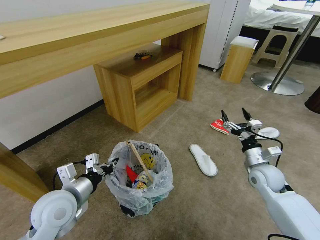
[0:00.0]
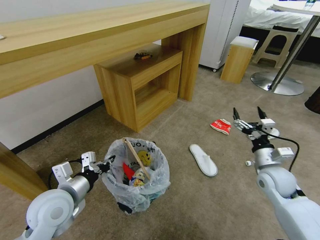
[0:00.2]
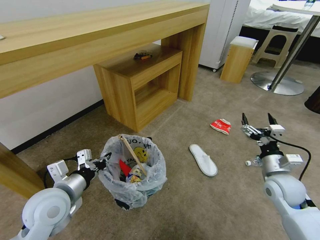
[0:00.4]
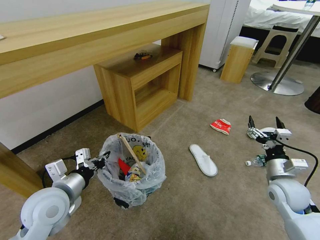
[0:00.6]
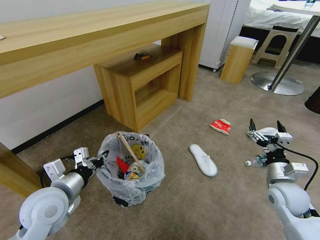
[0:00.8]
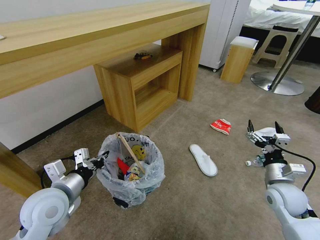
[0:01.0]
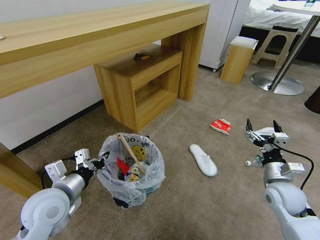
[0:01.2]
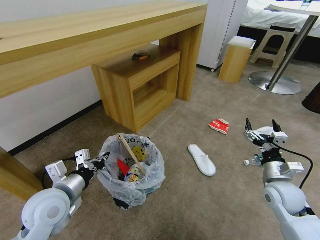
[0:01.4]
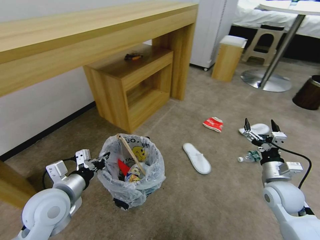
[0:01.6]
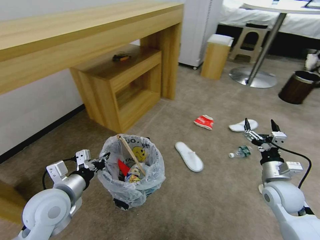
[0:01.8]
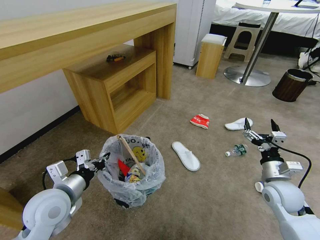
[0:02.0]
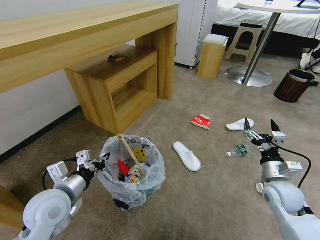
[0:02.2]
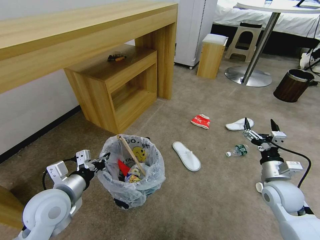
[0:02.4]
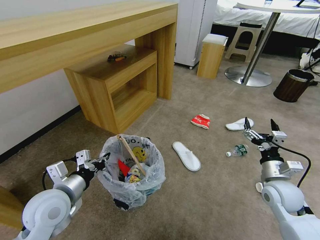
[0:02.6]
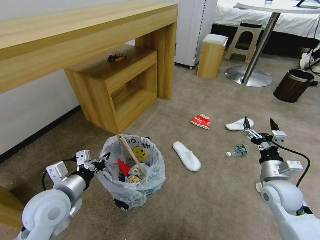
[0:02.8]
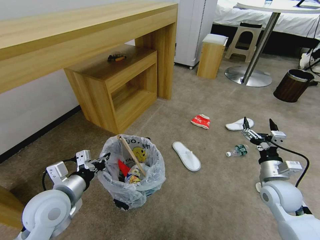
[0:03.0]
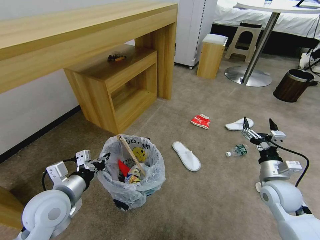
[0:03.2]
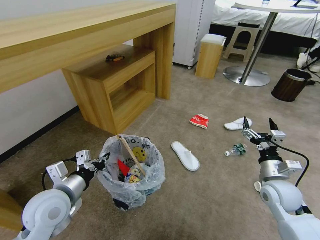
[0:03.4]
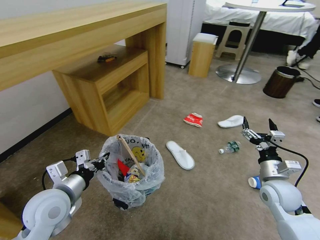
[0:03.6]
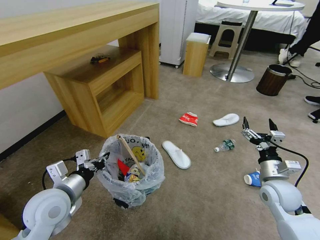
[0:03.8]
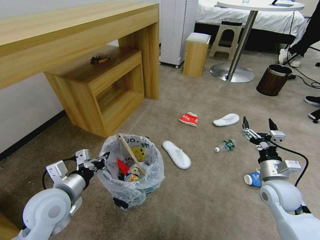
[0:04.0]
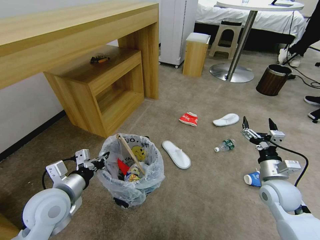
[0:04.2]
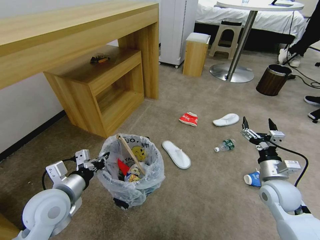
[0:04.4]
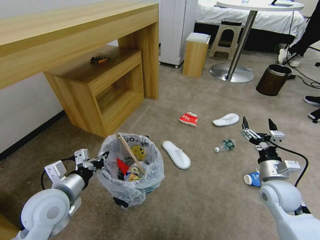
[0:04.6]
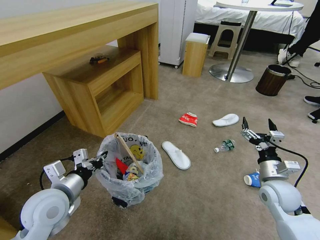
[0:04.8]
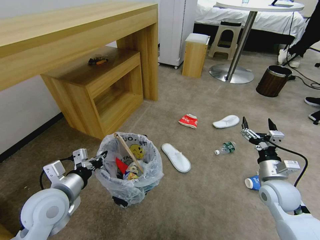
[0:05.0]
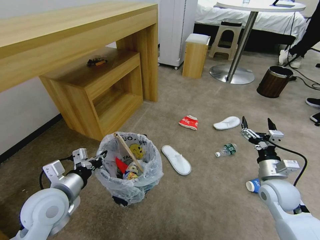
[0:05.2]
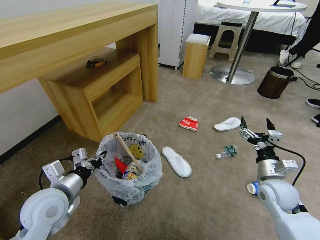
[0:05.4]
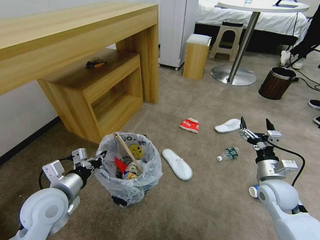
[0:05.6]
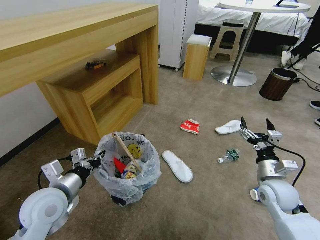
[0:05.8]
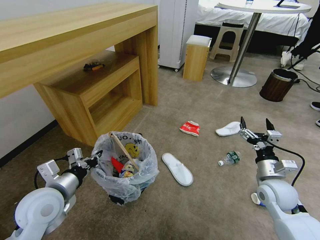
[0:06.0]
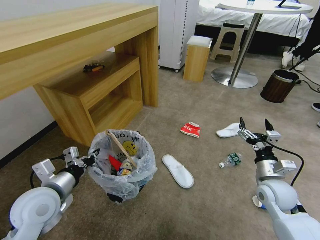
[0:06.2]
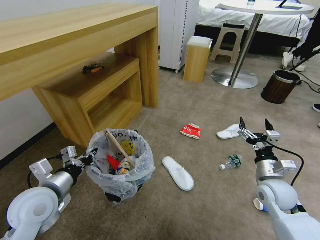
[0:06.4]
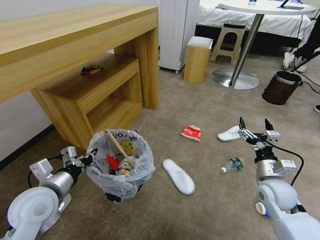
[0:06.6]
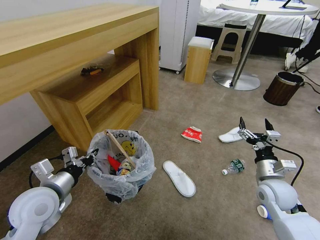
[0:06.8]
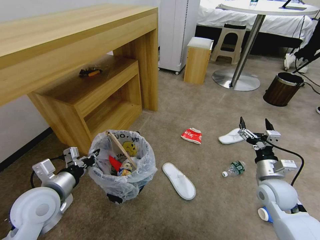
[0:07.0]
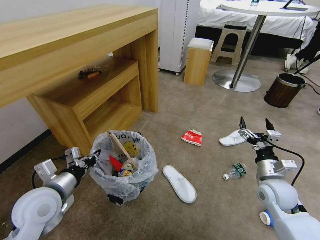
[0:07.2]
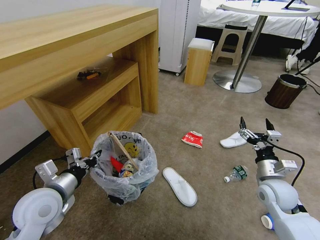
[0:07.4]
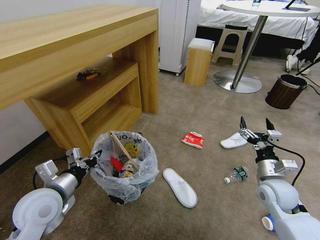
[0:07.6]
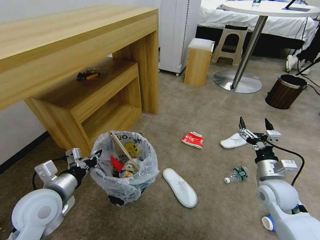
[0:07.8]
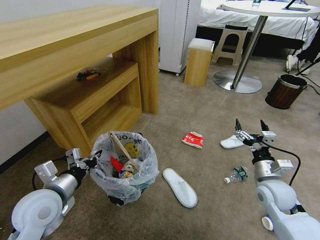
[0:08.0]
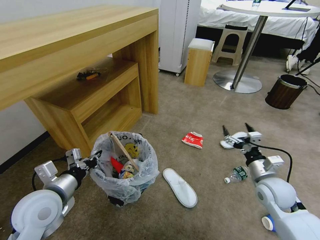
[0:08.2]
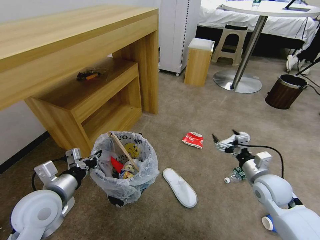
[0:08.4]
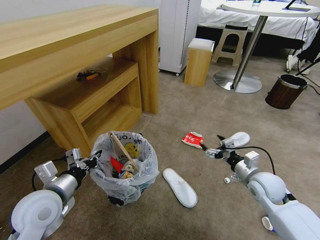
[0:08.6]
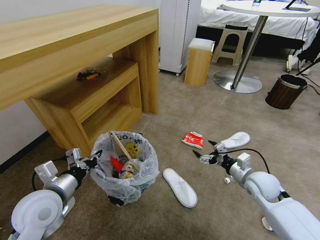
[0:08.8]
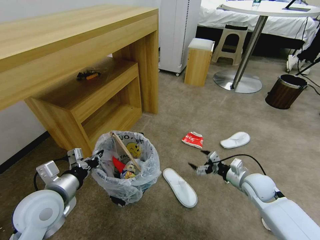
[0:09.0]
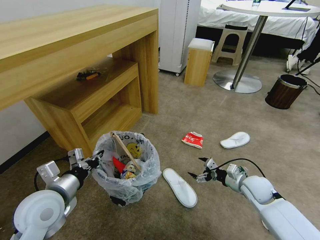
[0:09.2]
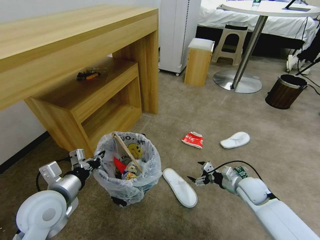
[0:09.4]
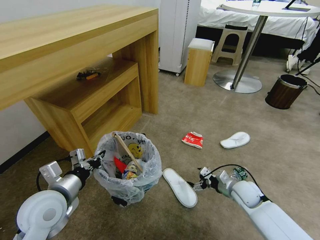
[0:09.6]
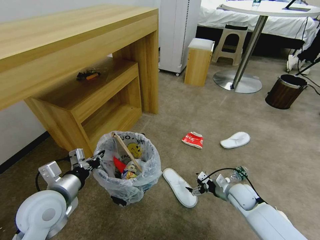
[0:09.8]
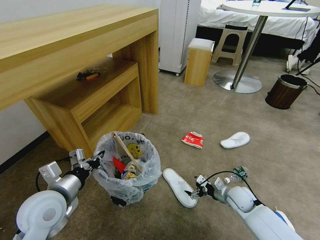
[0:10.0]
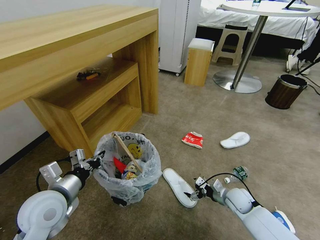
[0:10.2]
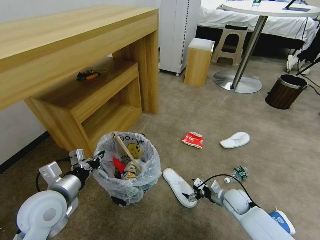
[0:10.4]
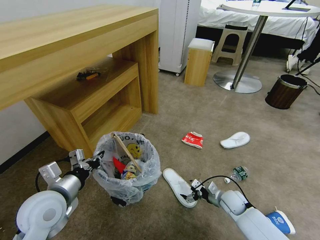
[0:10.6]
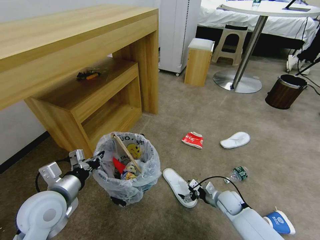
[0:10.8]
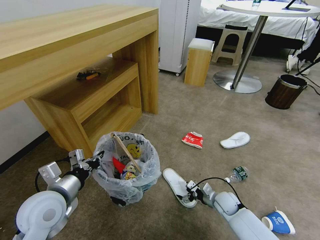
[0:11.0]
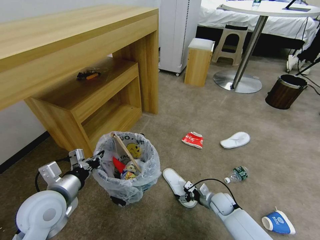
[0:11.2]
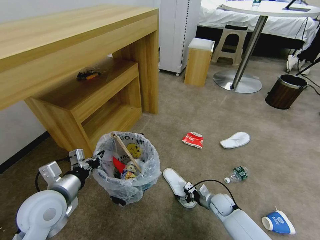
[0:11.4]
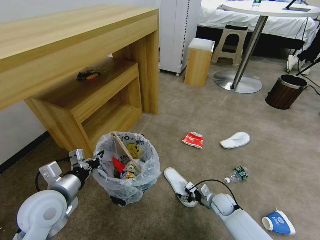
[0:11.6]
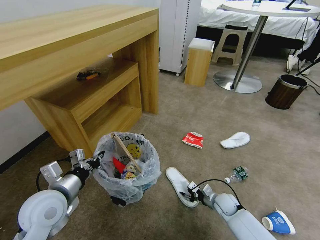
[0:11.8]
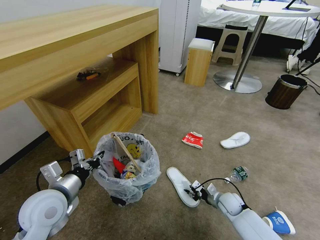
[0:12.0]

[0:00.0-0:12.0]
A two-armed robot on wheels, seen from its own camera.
Task of the whole recording: Pick up the trash bin and place the garbage on the floor into it.
0:00.0 to 0:01.6: The right gripper heads backward, covering some 5 cm.
0:07.6 to 0:09.0: The right gripper changes place by approximately 5 cm.
0:09.0 to 0:10.4: The right gripper travels downward by roughly 10 cm.
0:10.4 to 0:12.0: The right gripper ends up some 5 cm from where it was, and closes its fingers.

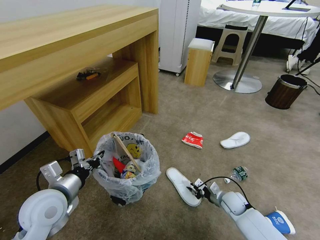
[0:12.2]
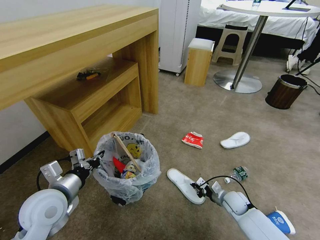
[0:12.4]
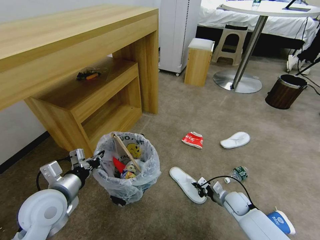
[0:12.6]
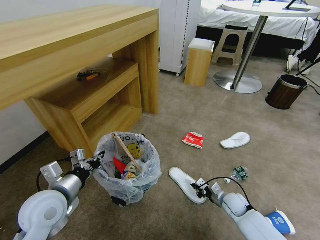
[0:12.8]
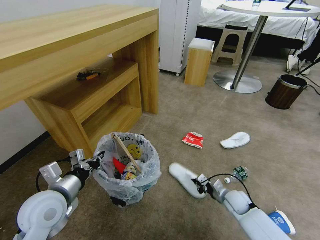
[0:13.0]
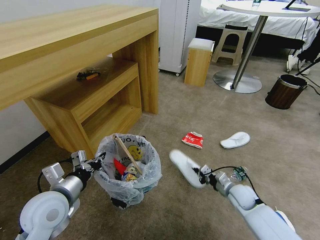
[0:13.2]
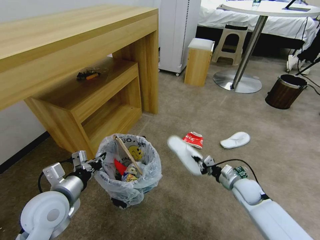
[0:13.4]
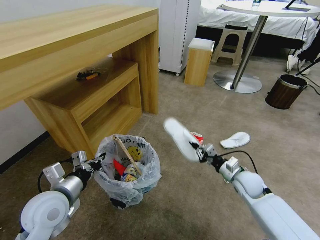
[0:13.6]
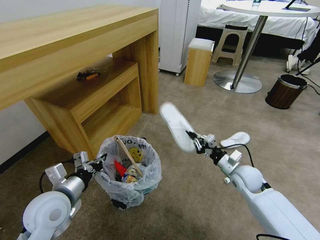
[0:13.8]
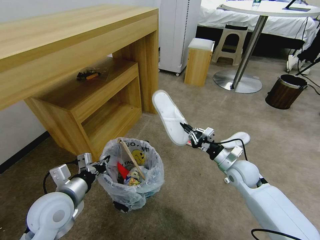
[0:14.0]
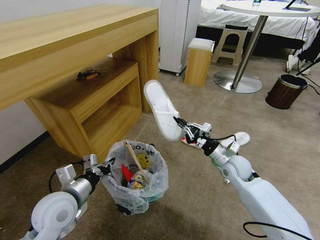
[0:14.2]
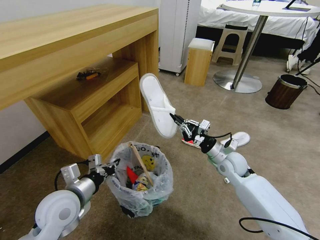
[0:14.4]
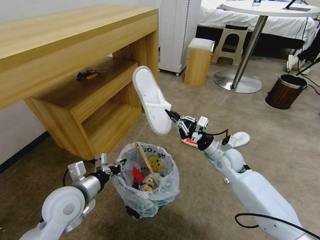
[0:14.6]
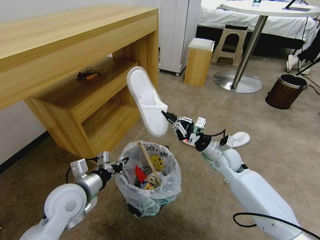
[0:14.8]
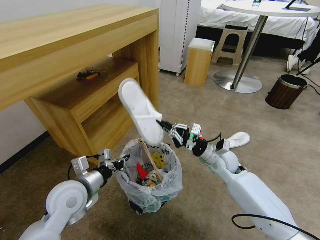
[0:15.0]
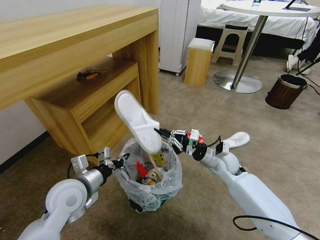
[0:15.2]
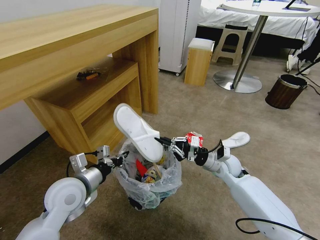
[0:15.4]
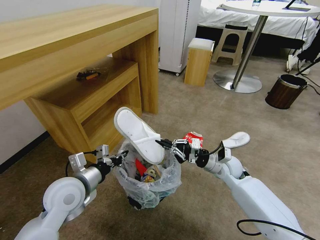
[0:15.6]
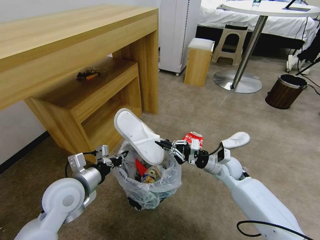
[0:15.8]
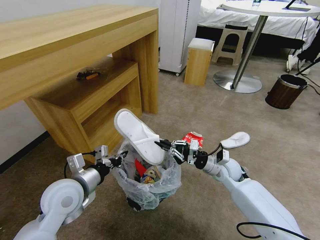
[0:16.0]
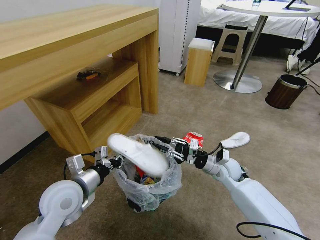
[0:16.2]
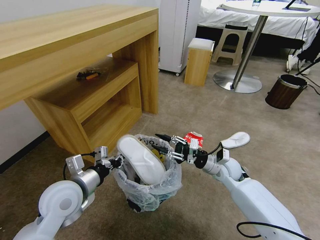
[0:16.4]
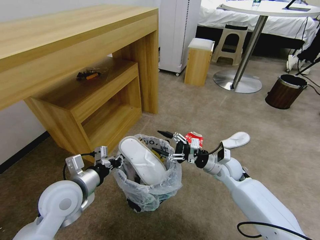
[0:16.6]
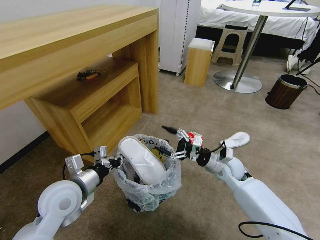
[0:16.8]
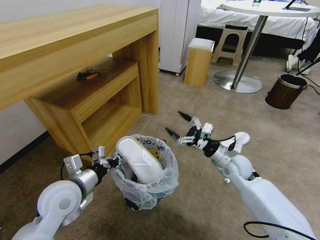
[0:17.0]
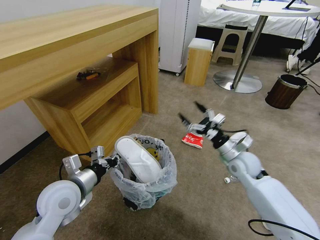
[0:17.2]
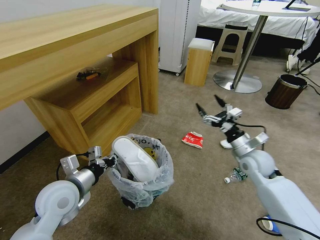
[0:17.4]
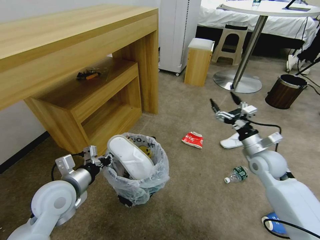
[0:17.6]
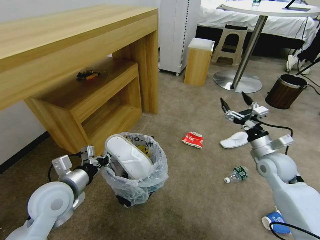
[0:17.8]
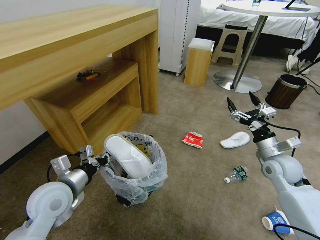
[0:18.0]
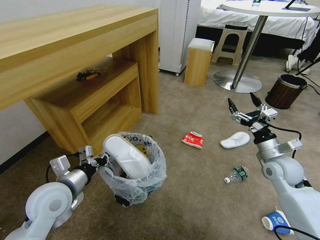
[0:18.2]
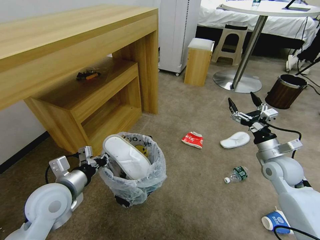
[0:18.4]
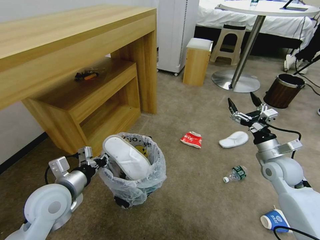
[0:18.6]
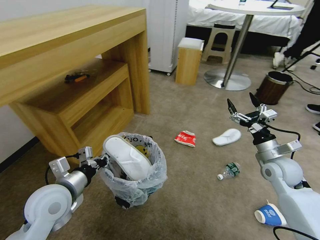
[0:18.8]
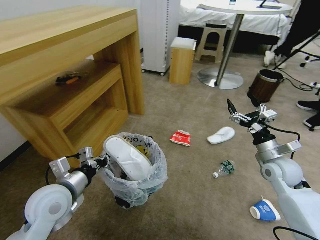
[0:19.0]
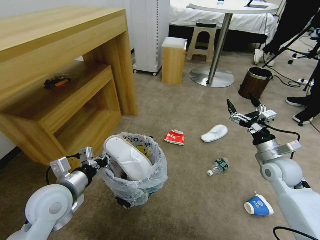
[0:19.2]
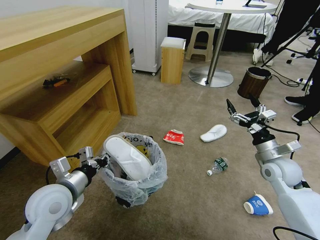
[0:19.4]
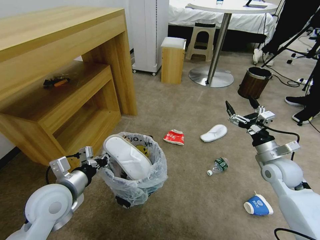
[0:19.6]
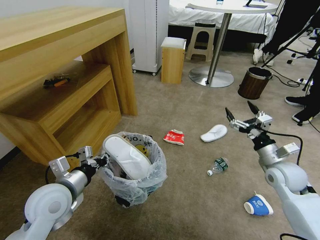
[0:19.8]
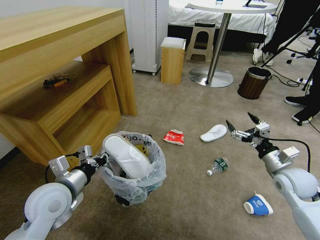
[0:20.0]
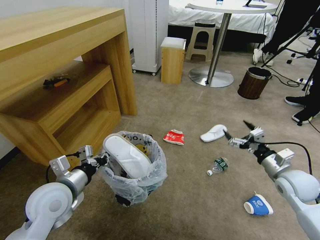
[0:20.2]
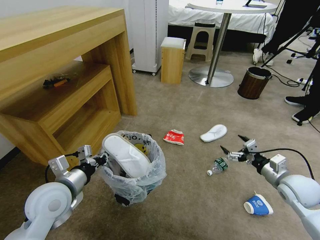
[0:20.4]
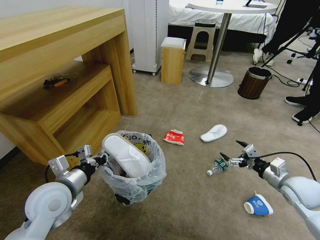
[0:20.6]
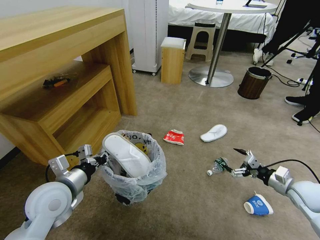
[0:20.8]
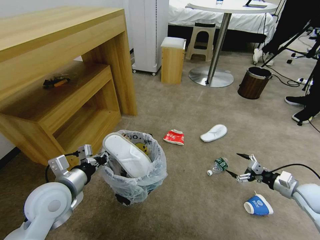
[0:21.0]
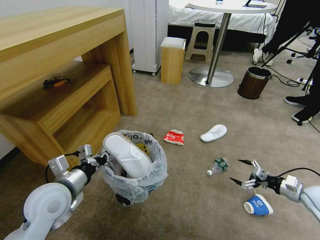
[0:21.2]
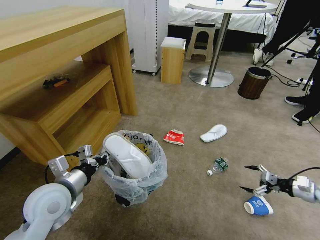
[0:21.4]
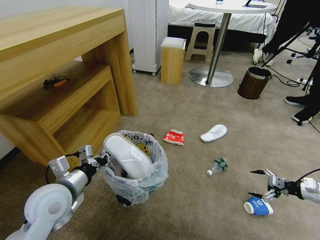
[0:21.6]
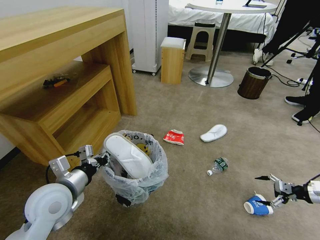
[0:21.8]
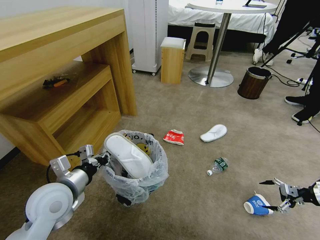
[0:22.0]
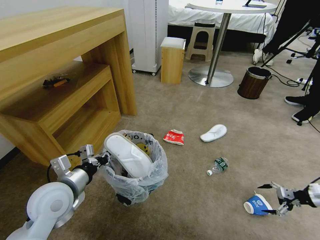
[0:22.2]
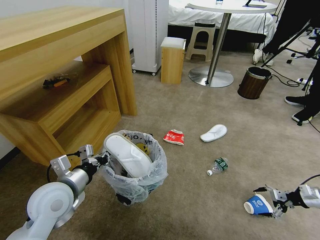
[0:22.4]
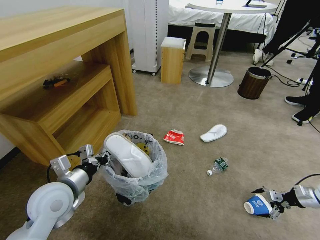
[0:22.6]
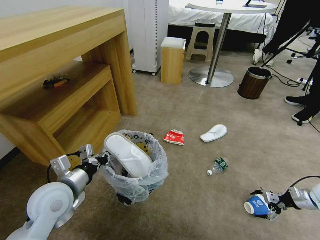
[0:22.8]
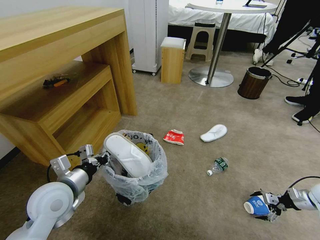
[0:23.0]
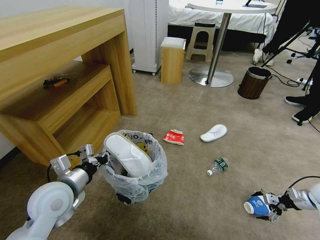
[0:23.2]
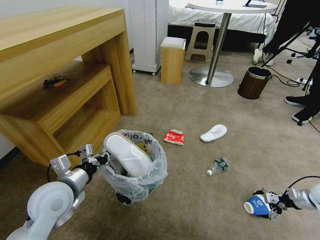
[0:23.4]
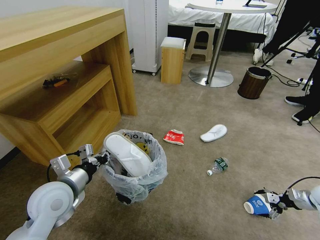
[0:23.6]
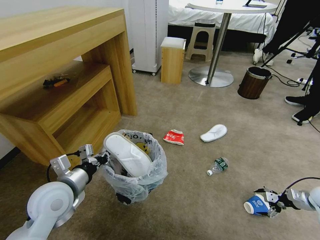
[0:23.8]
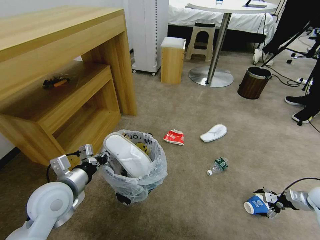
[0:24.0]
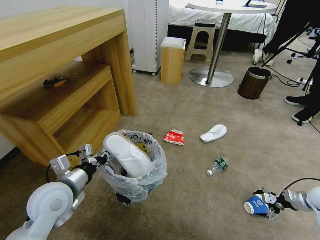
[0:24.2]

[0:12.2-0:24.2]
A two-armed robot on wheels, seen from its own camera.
Task of the whole recording: Pick up the trash bin and place the garbage on the floor into it.
0:12.2 to 0:13.8: The right gripper travels upward by some 20 cm.
0:13.8 to 0:15.2: The right gripper is displaced to the left by approximately 5 cm.
0:15.2 to 0:16.6: The right gripper opens up.
0:16.6 to 0:18.2: The right gripper shifts about 15 cm to the right and upward.
0:19.8 to 0:21.2: The right gripper travels to the right and downward by about 15 cm.
0:21.2 to 0:22.6: The right gripper goes some 10 cm to the right.
0:22.6 to 0:24.2: The grippers make only small movements.
